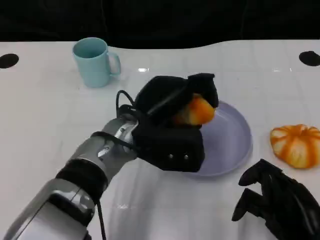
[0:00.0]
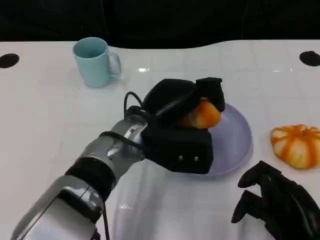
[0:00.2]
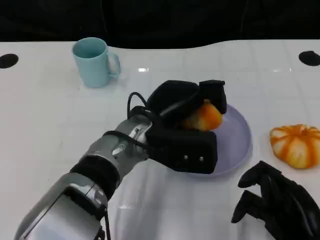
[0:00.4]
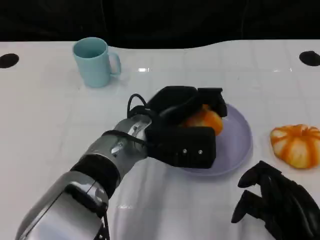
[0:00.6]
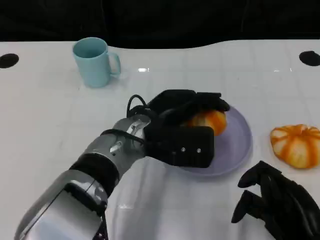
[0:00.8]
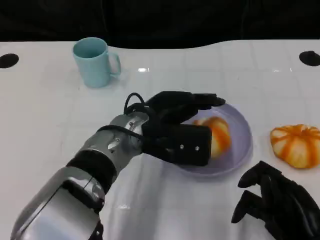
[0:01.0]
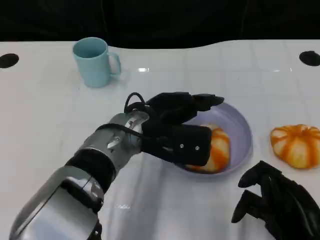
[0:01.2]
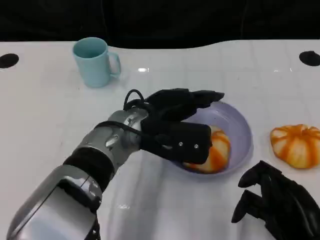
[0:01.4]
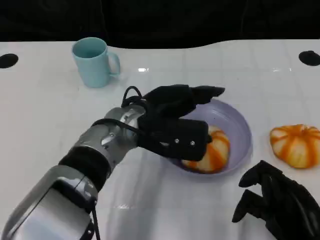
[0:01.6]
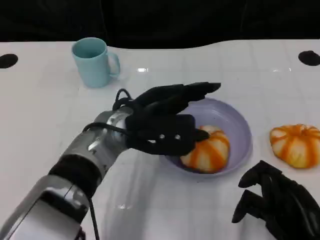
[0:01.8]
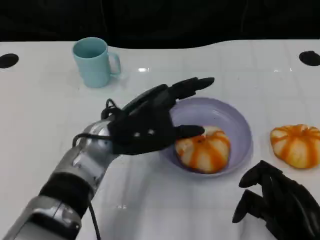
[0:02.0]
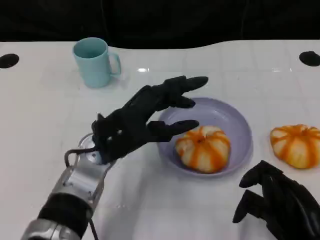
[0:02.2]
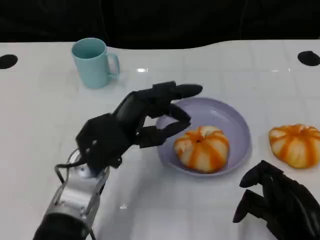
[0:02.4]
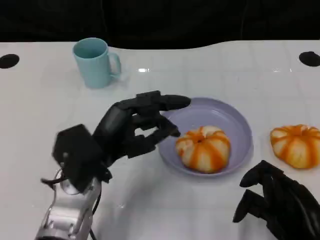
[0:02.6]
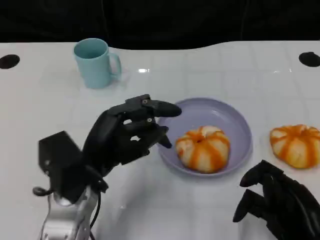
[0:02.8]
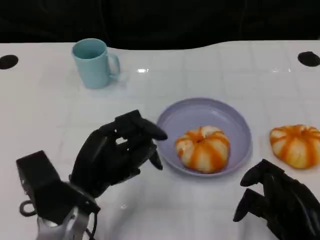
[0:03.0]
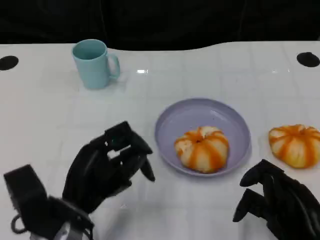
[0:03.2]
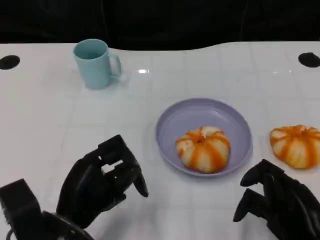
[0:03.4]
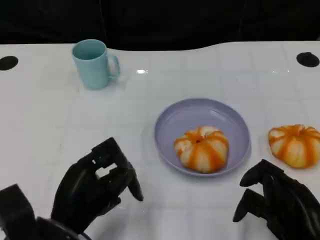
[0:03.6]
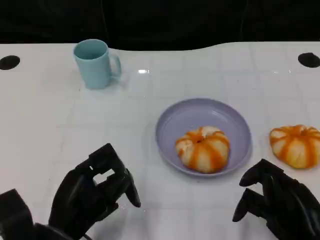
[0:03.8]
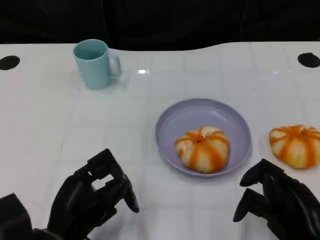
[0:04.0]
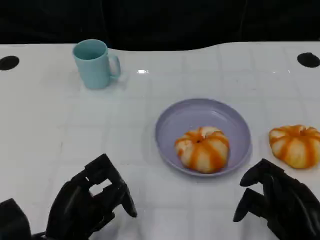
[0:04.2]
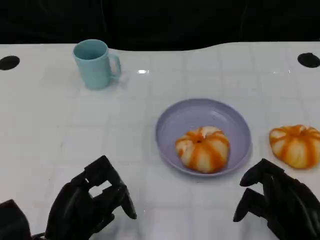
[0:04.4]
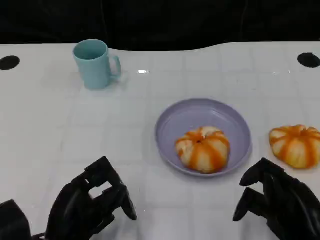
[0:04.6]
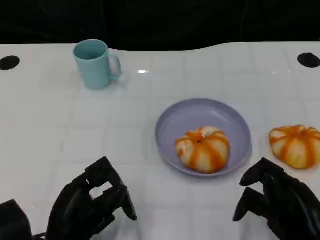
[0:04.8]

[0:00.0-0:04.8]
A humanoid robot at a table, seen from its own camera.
Task of the whole recording: Grasp the bread from the table and place it into the plate.
0:01.6 to 0:03.2: The left hand moves backward, to the left and downward, some 15 cm.
0:03.2 to 0:04.8: The left hand ends up some 5 cm from where it was.

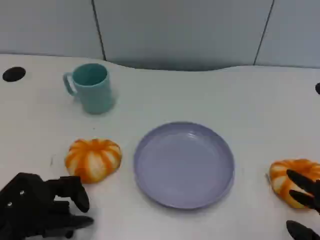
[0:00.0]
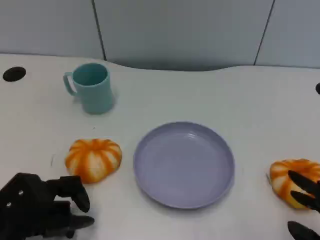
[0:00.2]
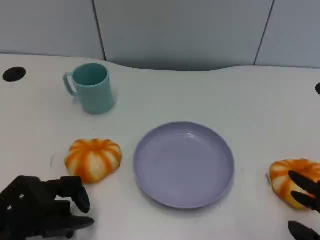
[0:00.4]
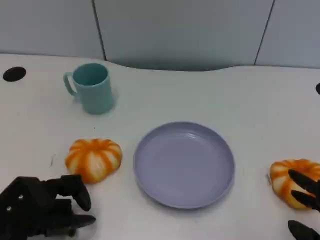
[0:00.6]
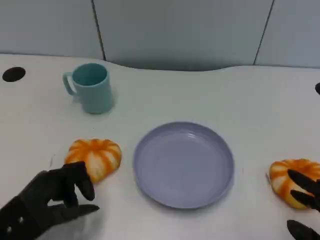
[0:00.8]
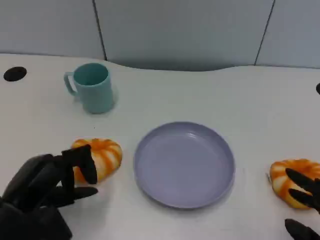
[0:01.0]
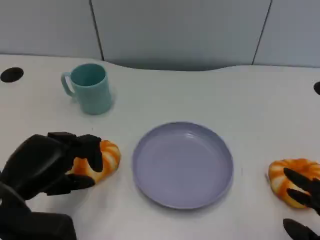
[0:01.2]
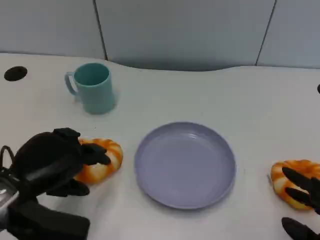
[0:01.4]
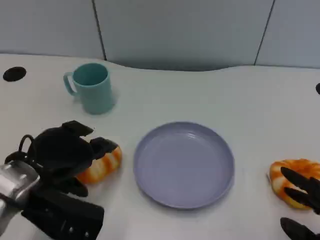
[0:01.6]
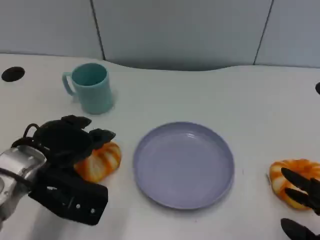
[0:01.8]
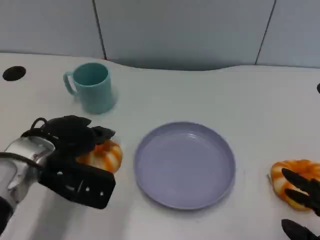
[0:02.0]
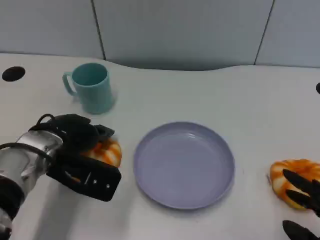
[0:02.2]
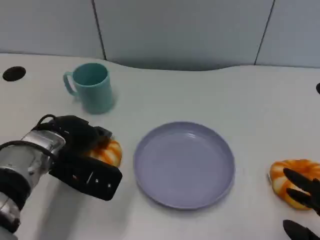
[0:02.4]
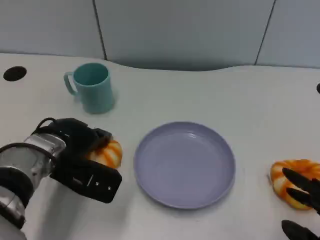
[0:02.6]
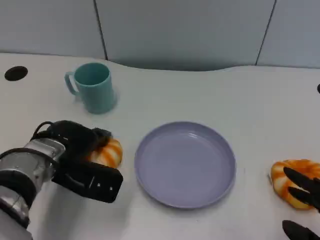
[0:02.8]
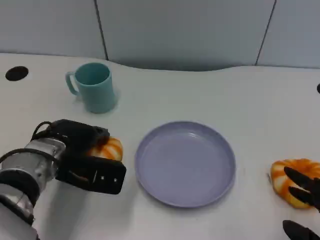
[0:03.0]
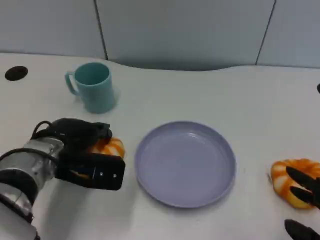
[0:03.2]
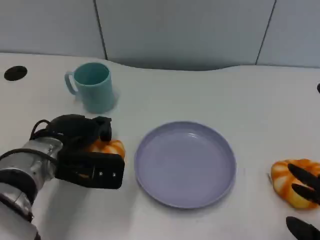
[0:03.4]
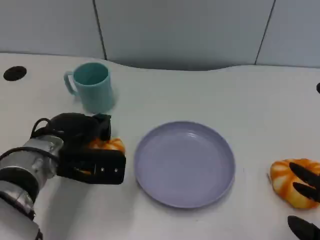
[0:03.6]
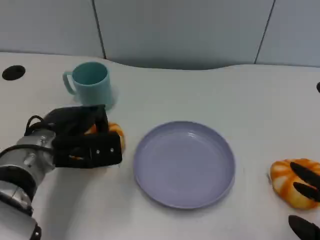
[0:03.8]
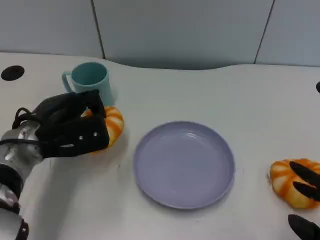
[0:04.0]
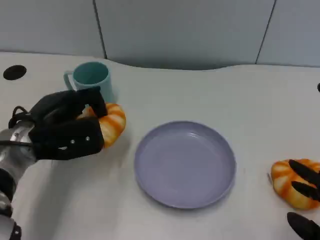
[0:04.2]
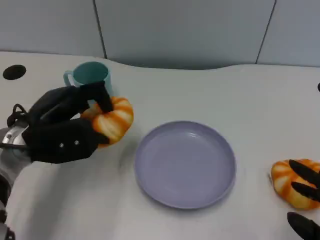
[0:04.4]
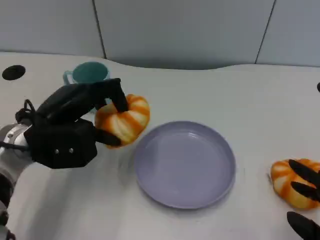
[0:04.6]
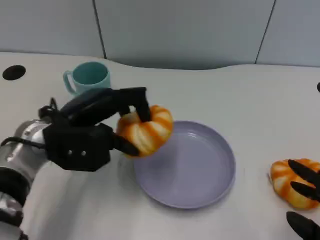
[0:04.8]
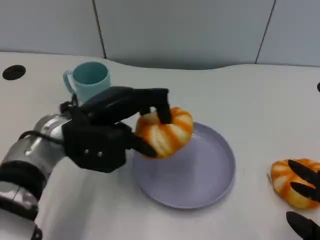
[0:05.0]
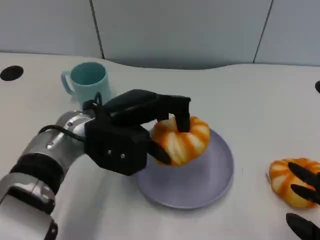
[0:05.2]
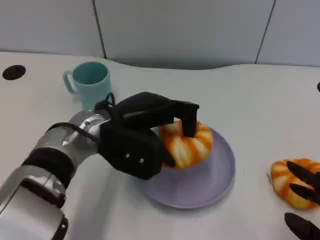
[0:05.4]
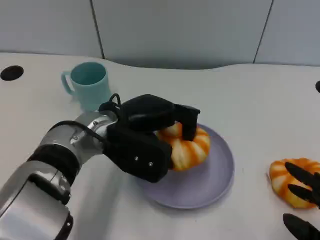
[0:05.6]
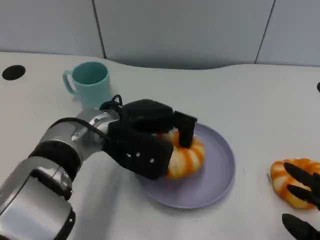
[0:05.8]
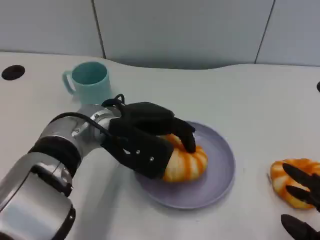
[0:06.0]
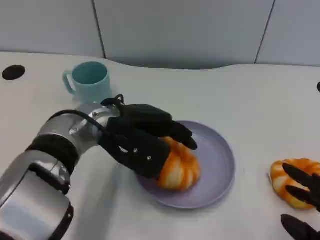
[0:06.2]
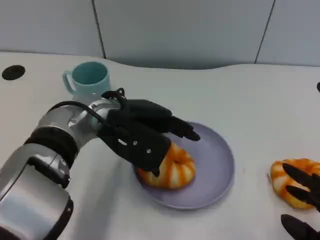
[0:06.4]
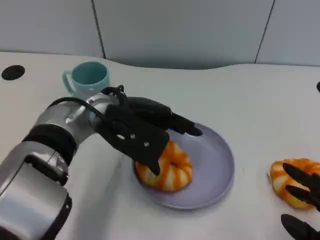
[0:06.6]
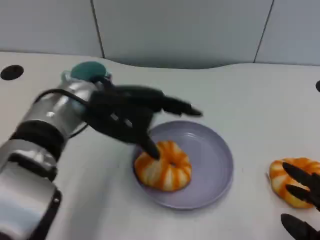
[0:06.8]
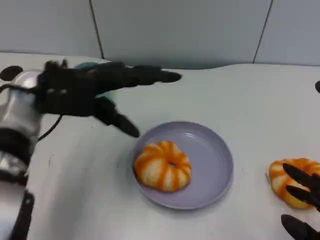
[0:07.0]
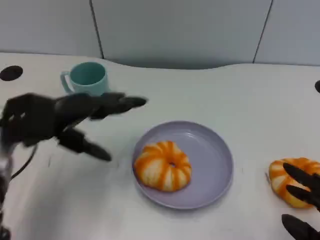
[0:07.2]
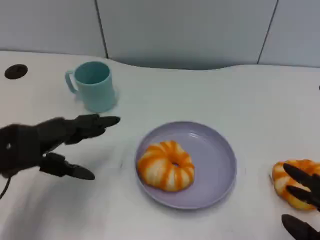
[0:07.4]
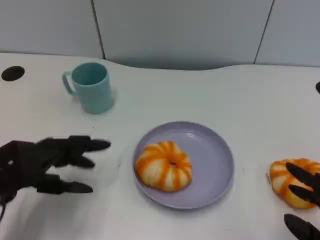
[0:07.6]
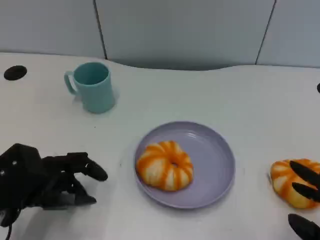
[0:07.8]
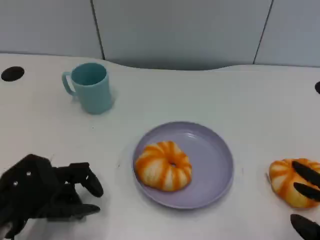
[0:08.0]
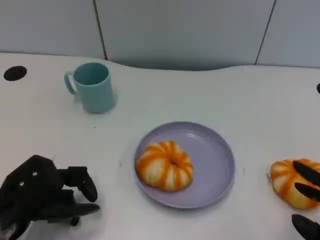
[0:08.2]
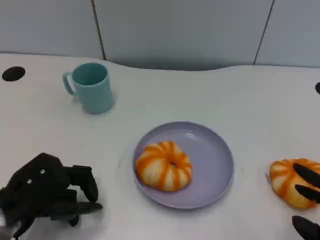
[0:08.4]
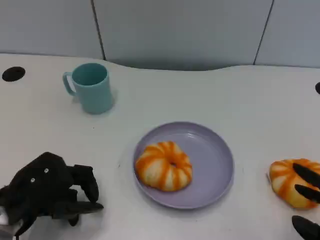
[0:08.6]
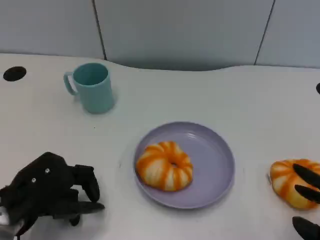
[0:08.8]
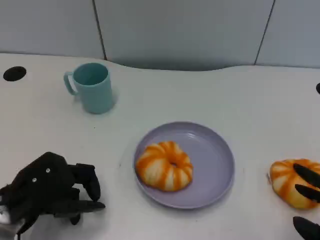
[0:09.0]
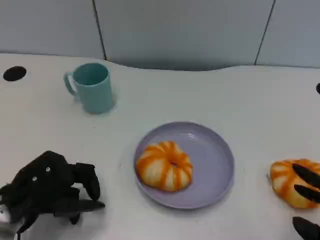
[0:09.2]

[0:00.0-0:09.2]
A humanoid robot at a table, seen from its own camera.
Task of the whole recording: Grasp the bread from the table and place it into the plate.
0:00.0 to 0:01.6: The left hand travels forward and upward by approximately 10 cm.
0:01.6 to 0:03.0: The left hand shifts about 5 cm forward.
0:04.6 to 0:06.2: The left hand is displaced to the right by approximately 10 cm.
0:06.2 to 0:07.6: The left hand heads to the left and backward, covering roughly 20 cm.
0:07.6 to 0:09.2: The hands move only a little.

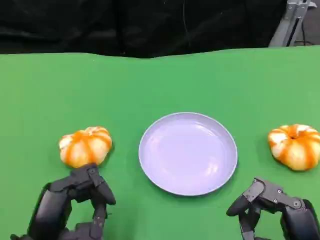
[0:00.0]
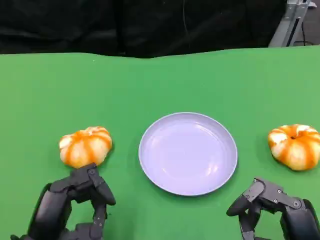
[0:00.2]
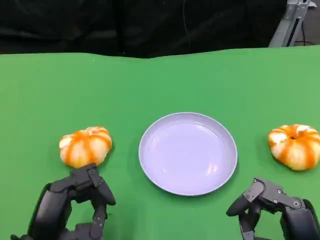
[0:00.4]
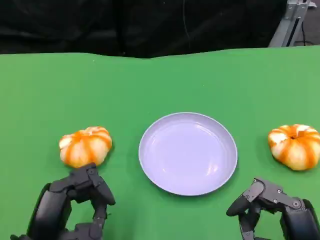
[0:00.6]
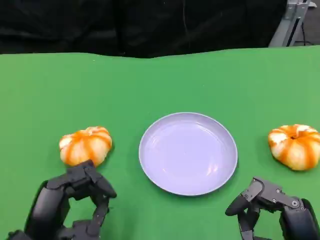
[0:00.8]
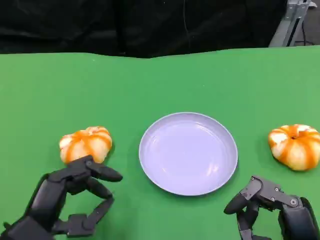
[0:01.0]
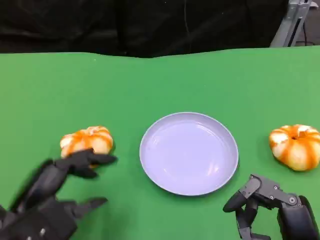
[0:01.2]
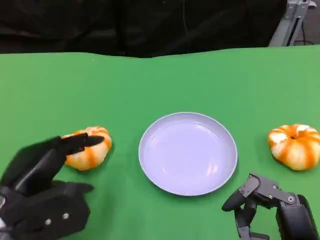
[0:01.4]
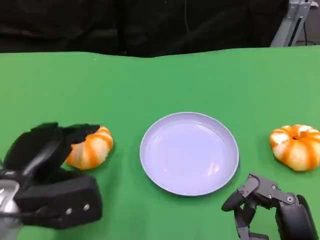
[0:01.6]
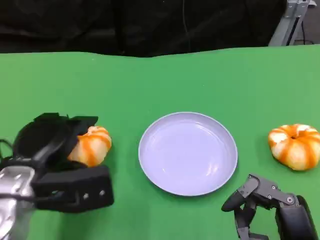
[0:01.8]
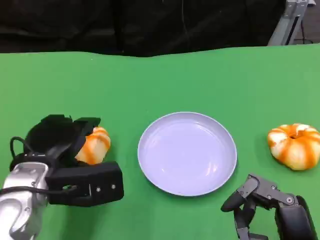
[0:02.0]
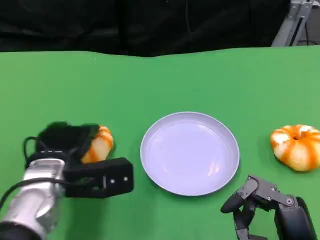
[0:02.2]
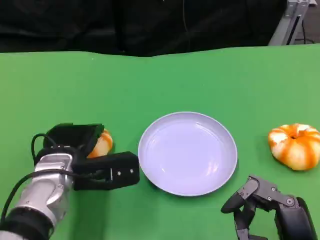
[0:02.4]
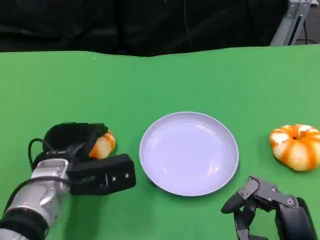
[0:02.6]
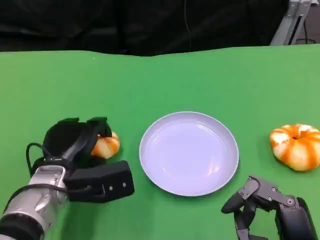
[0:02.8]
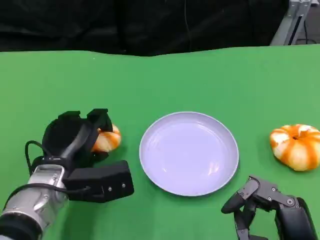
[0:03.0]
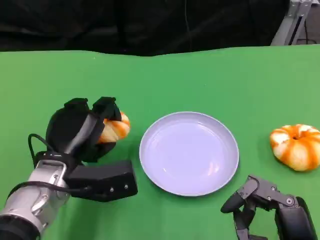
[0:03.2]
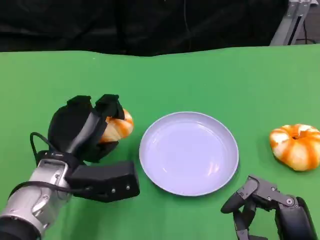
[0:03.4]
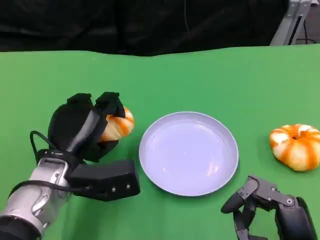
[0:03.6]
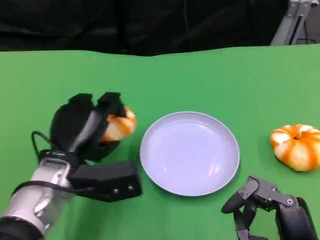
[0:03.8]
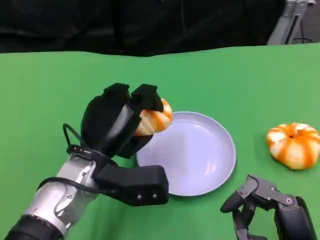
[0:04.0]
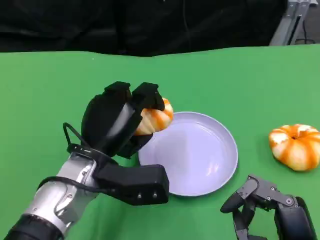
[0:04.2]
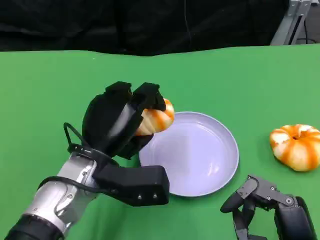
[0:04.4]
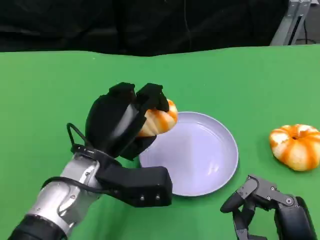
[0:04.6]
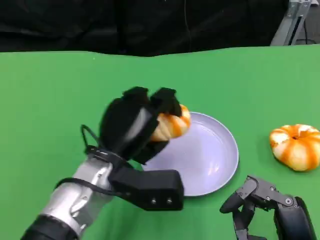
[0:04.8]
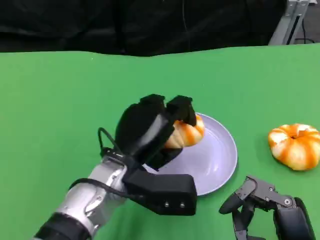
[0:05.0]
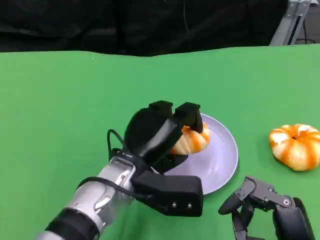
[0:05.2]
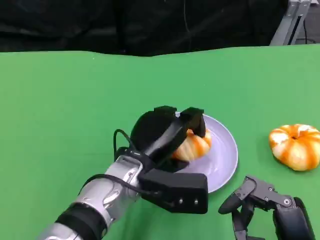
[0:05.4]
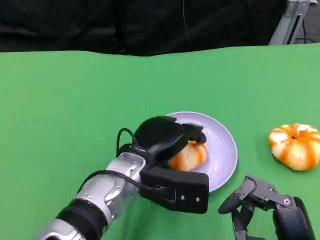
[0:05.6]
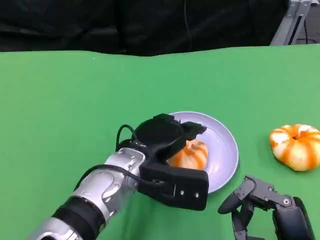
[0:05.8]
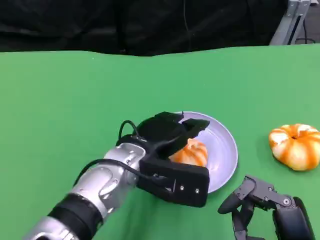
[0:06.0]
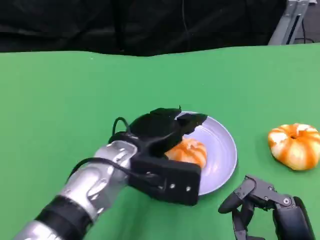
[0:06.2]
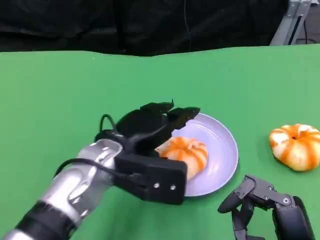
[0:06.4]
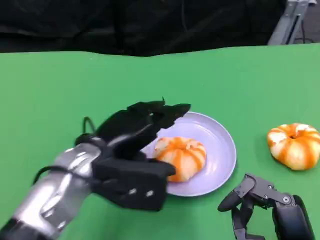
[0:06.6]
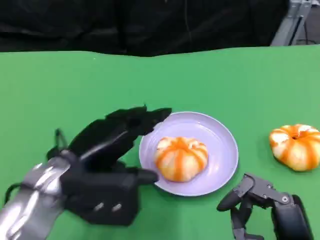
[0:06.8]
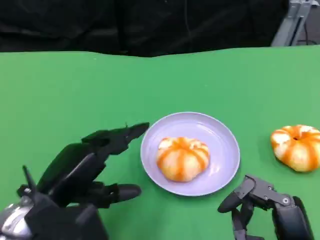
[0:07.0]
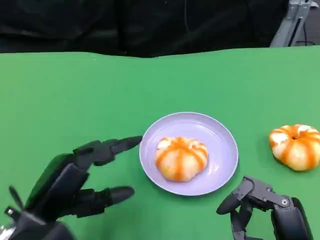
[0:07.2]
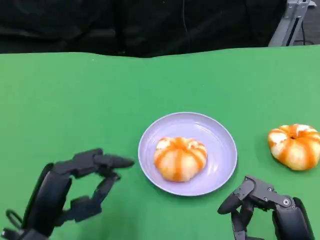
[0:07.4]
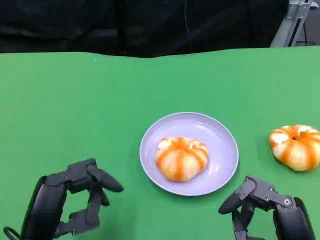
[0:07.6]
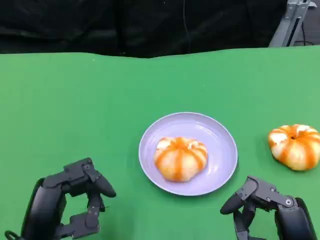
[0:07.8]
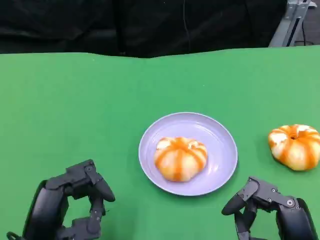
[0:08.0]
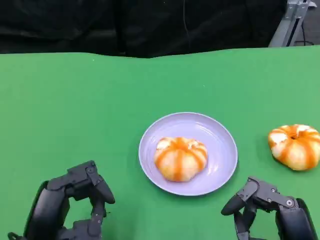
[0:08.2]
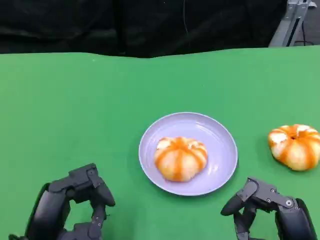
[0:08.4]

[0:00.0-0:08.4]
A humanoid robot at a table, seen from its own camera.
Task of the whole recording: Grasp the bread from the table and place it into the plate.
0:00.0 to 0:01.4: The left hand moves forward and upward, some 10 cm.
0:01.4 to 0:02.8: The left hand shifts approximately 10 cm forward, downward and to the right.
0:02.8 to 0:04.2: The left hand changes place by roughly 5 cm.
0:04.2 to 0:05.6: The left hand shifts approximately 5 cm to the right.
0:05.6 to 0:07.0: The left hand goes approximately 15 cm to the left and backward.
0:07.0 to 0:08.4: The left hand ends up roughly 5 cm from where it was.
